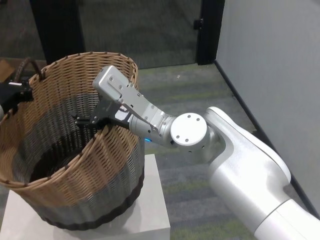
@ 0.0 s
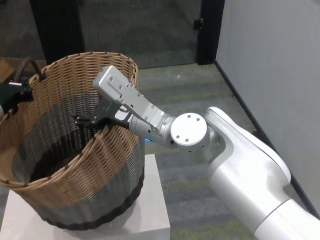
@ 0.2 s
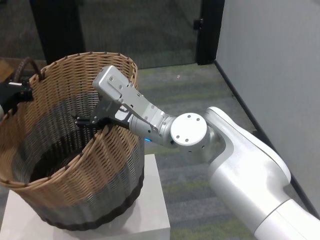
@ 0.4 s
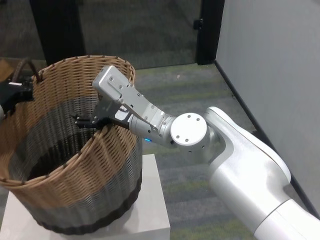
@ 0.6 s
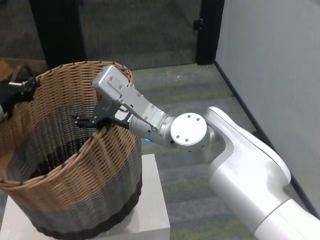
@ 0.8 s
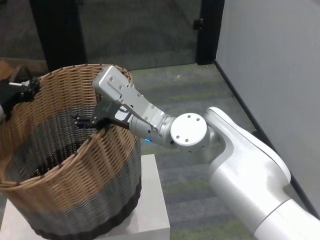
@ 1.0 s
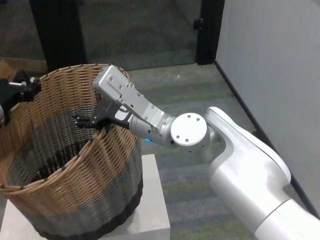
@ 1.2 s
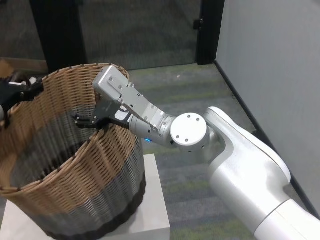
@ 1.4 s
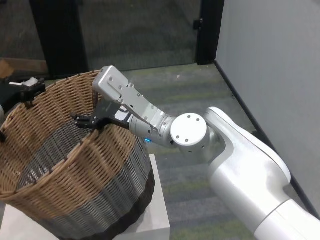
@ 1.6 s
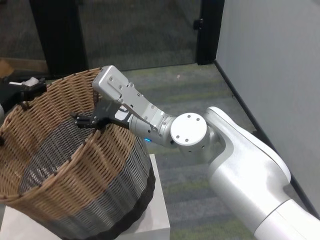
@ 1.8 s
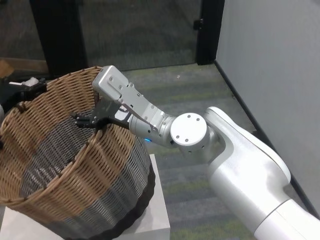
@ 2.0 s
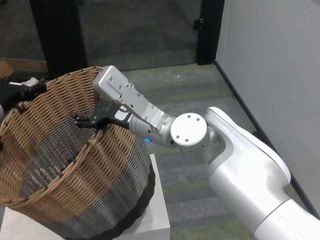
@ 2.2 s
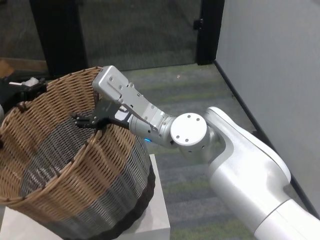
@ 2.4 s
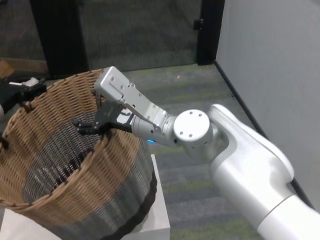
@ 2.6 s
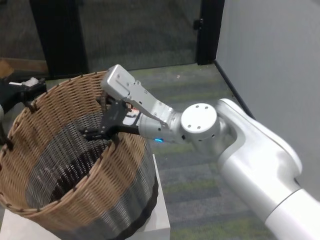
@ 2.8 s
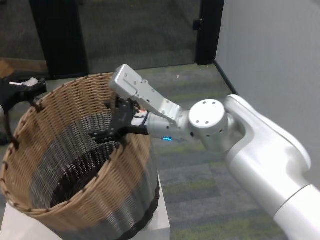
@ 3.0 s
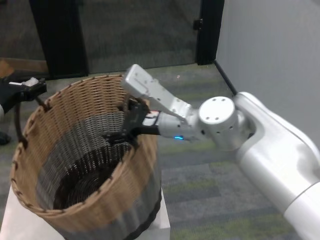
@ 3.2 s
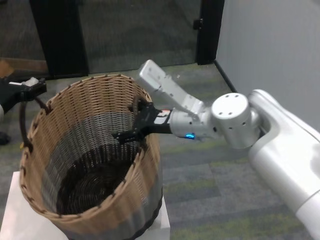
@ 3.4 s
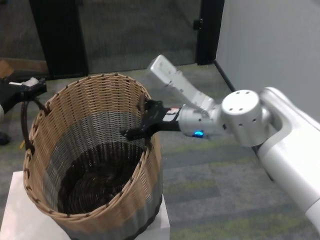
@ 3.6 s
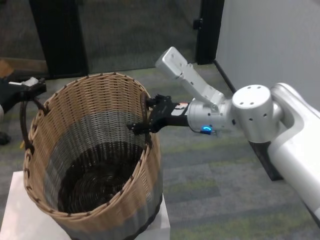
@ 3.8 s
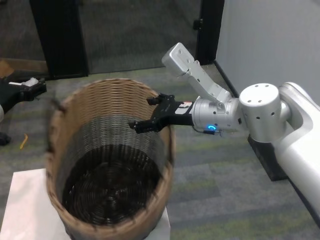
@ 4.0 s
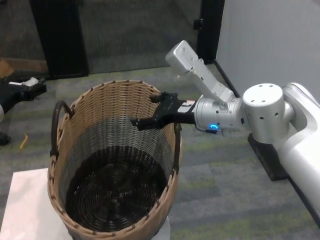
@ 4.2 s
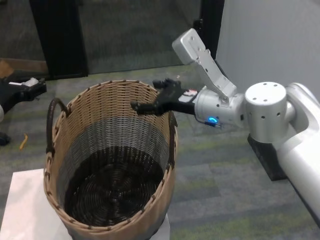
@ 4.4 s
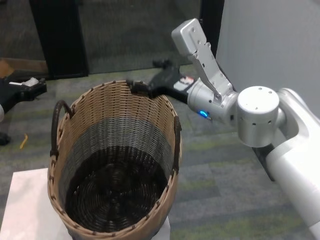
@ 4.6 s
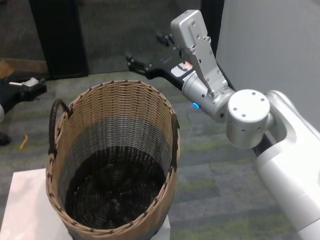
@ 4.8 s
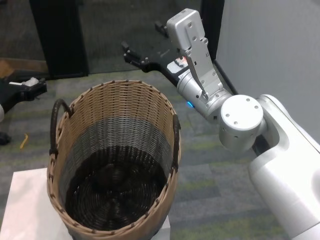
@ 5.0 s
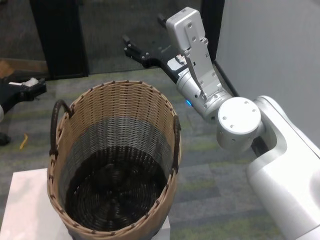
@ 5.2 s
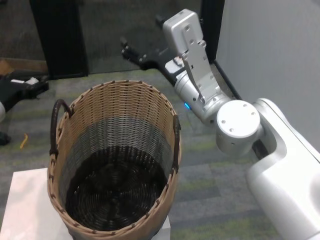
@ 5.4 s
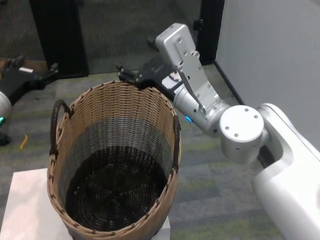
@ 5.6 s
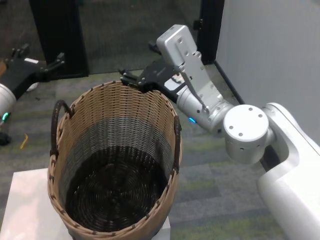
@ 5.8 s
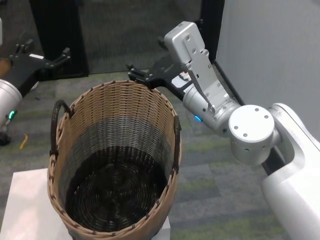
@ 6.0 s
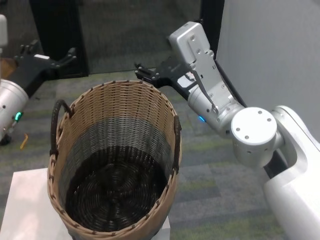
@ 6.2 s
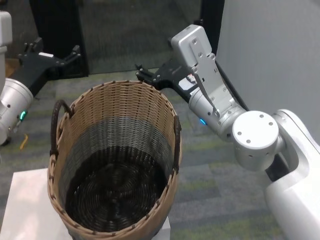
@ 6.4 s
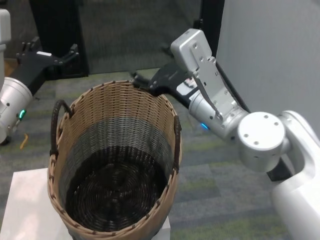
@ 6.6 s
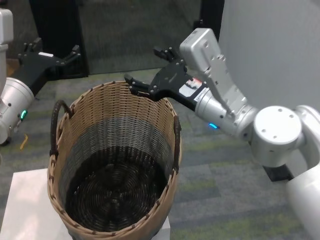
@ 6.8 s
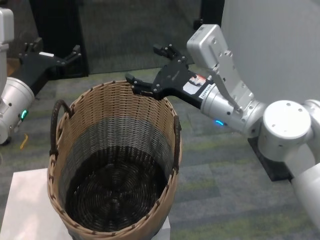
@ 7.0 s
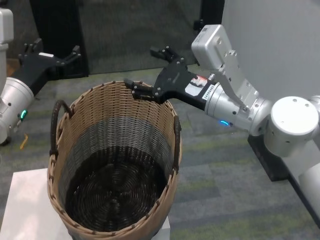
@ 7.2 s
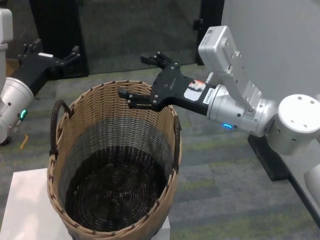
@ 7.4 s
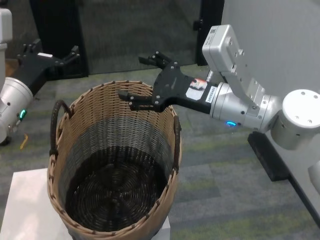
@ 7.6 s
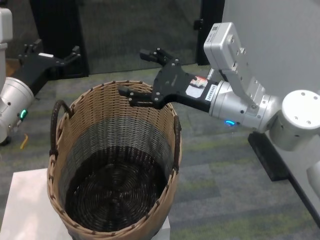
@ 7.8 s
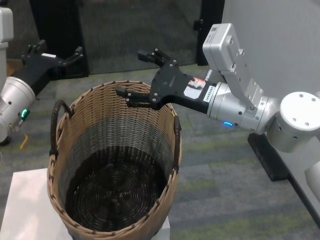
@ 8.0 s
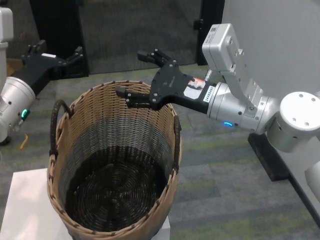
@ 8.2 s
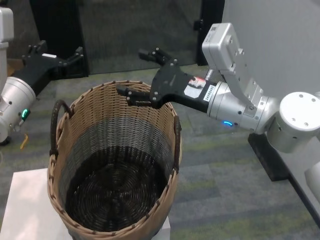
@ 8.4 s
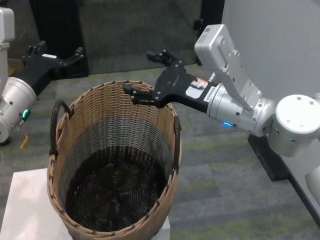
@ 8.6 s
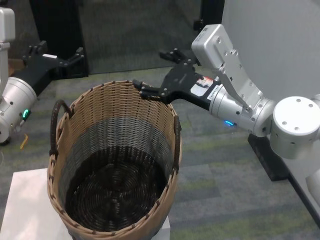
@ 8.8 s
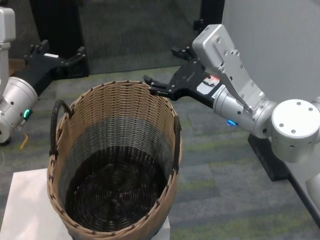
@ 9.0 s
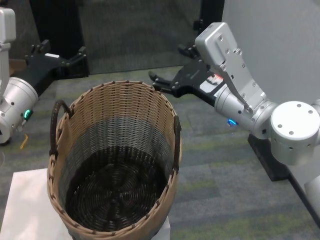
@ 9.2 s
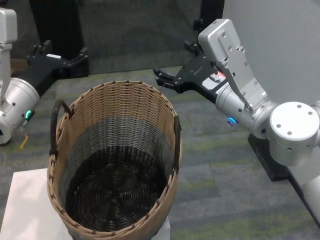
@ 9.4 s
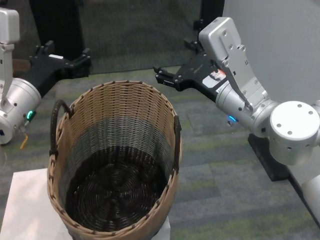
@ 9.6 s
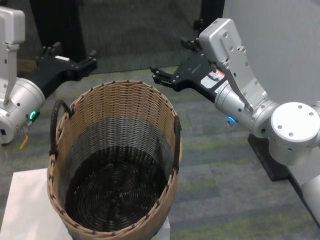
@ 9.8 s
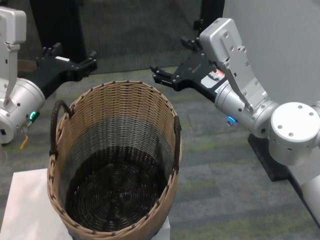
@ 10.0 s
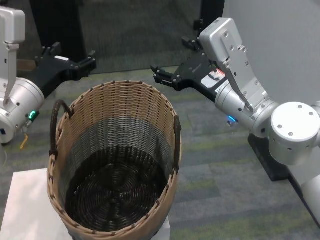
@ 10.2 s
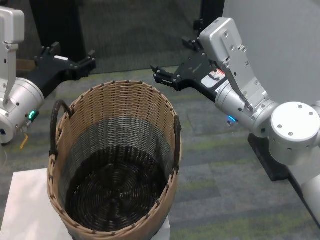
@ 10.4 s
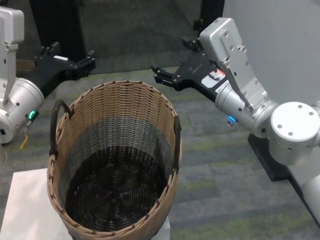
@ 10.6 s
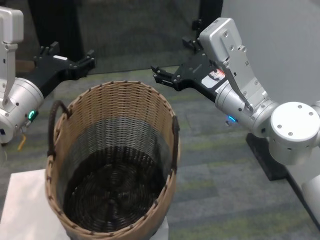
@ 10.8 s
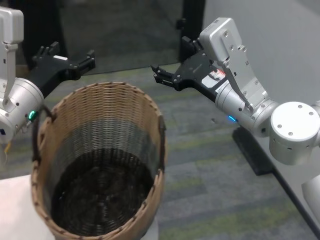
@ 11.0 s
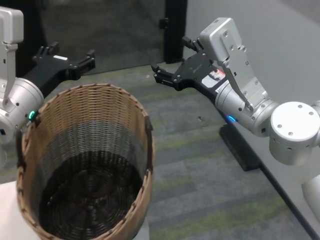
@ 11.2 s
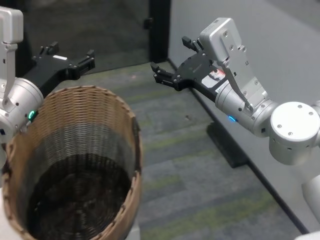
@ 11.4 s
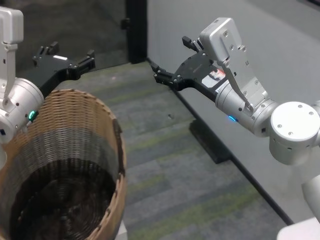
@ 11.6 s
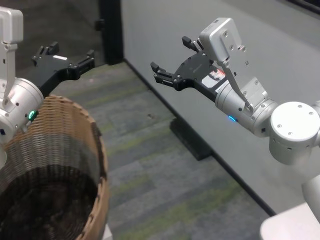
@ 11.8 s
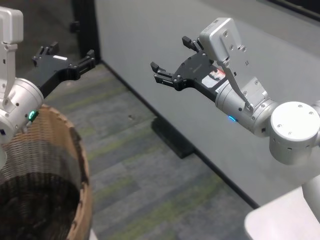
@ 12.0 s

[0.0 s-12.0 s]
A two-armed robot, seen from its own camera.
Task of the whole recording: carry the clothes basket in coordination with both hands.
Step, 1.6 to 3.8 s: Place the basket on the table with right gripper.
